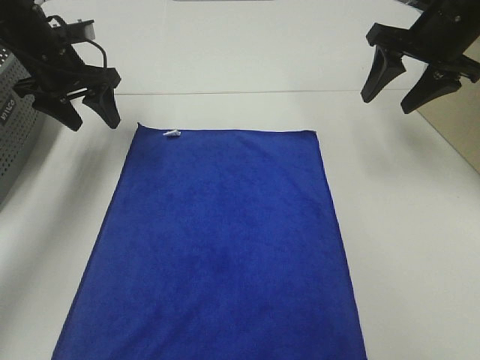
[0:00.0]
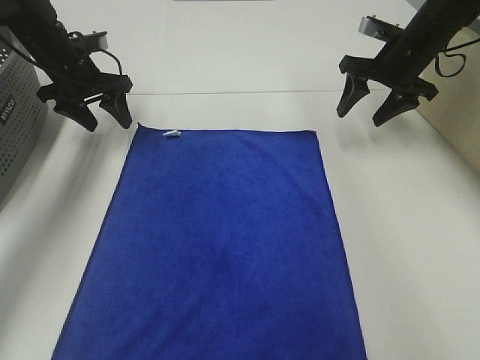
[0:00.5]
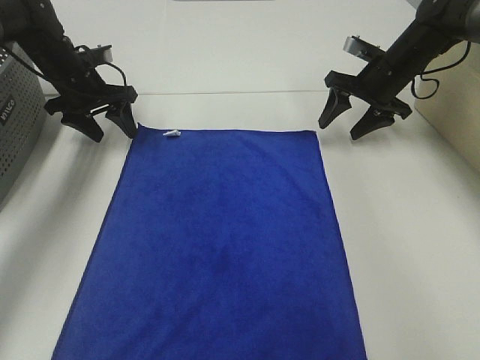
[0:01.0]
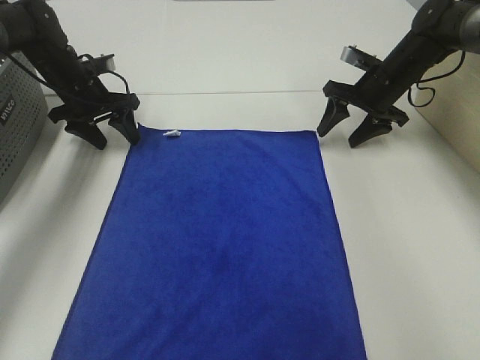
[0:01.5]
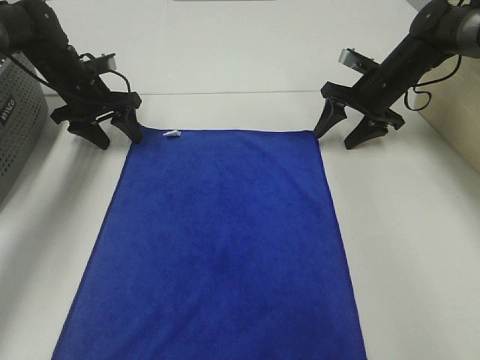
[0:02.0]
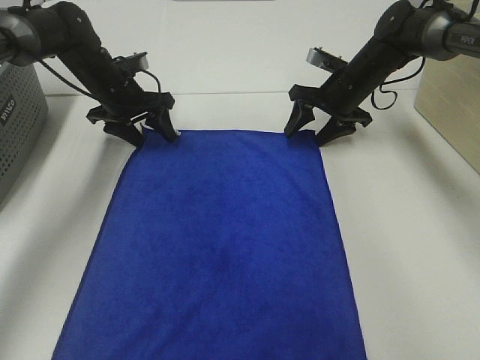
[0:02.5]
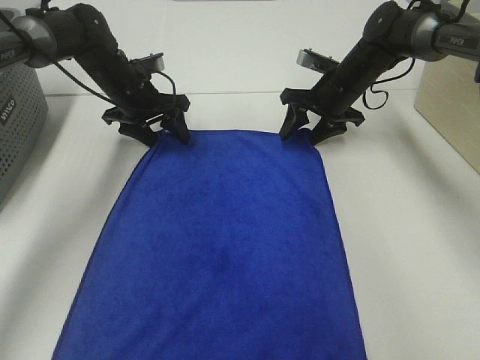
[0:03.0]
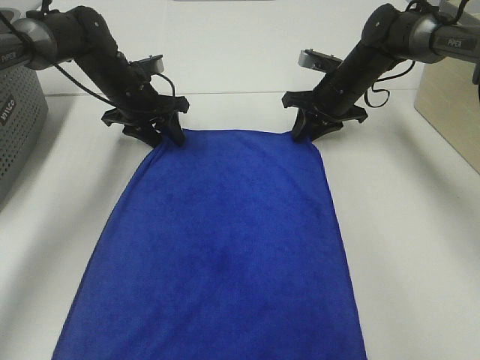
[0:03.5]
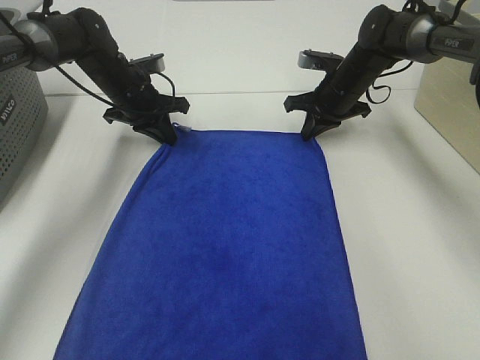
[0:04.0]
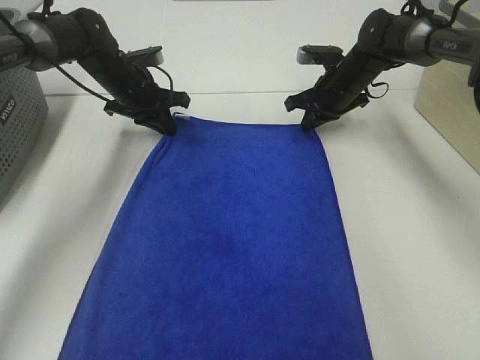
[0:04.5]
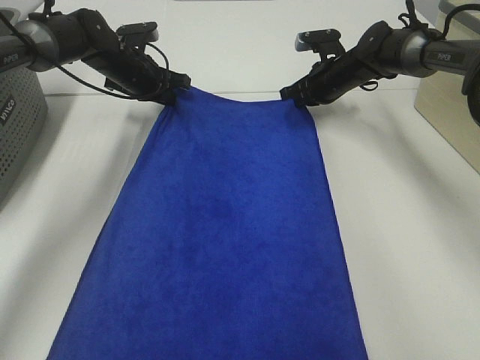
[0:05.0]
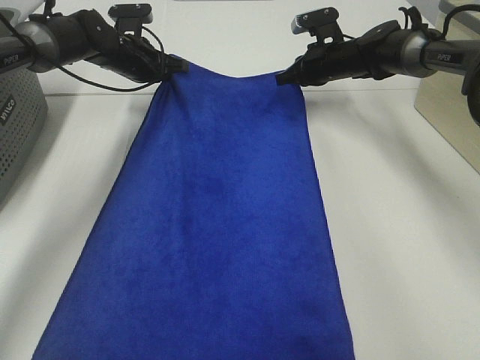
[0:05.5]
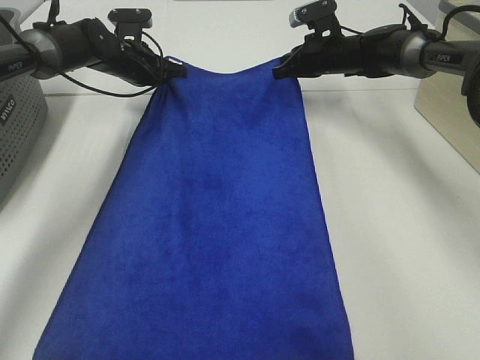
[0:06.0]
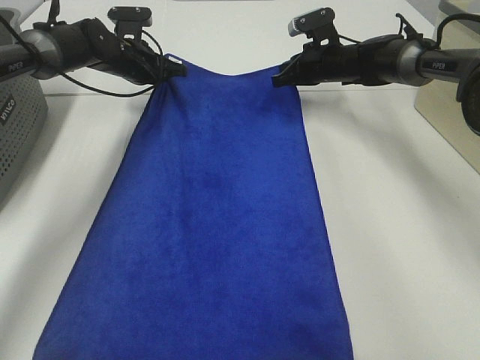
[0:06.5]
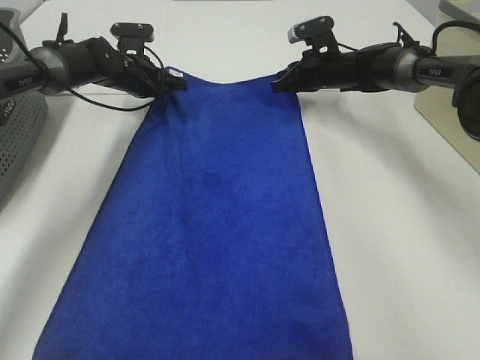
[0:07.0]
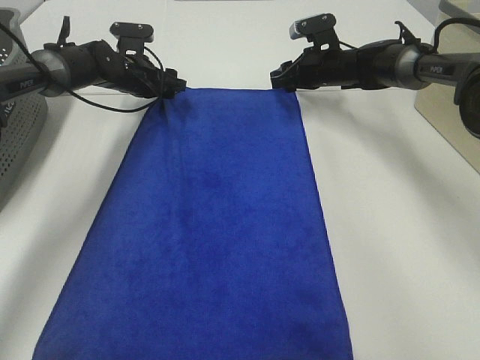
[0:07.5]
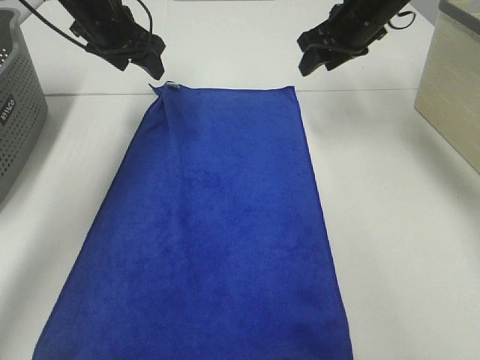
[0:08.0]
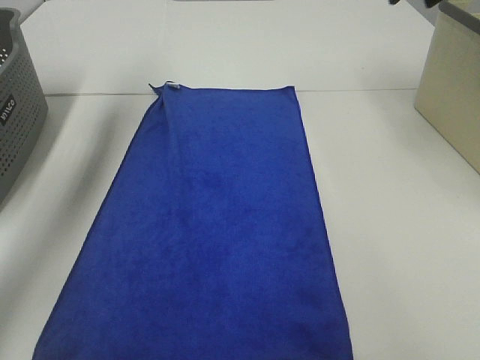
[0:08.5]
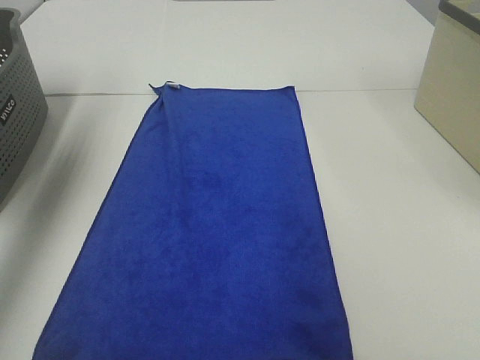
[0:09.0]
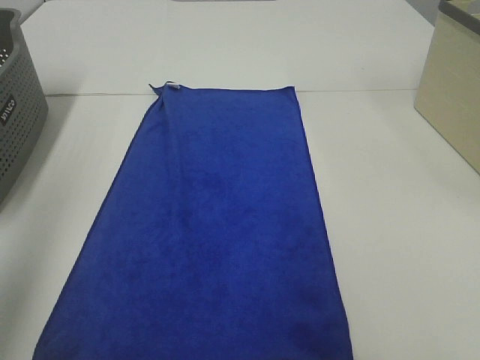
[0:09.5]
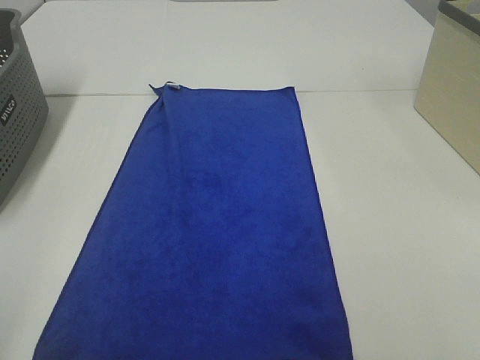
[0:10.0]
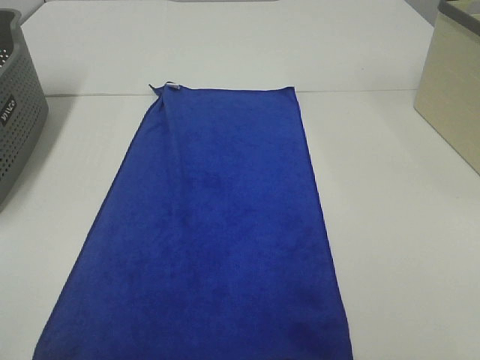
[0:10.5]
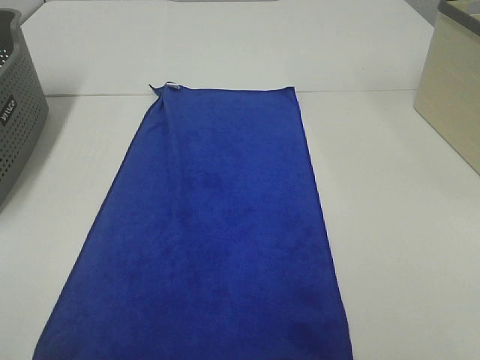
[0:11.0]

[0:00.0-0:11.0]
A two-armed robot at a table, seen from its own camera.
Task of the whole recording: Remove the towel and place it.
0:00.0 to 0:02.0: The left gripper goes some 10 cm downward. Meanwhile the right gripper shifts some 15 cm downward and forward.
0:02.0 to 0:03.5: The right gripper goes about 5 cm to the left, and closes up, while the left gripper is displaced to the right by some 5 cm.
0:03.5 to 0:05.5: The right gripper ends up roughly 5 cm from where it was, and closes, while the left gripper heads forward, covering approximately 5 cm, and closes its fingers.
0:05.5 to 0:07.5: The right gripper opens up. Meanwhile the left gripper opens up.
0:07.5 to 0:09.0: The left gripper moves upward, backward and to the left, approximately 40 cm; the right gripper moves upward and backward, roughly 40 cm.
0:09.0 to 0:11.0: The left gripper travels backward by about 35 cm.
